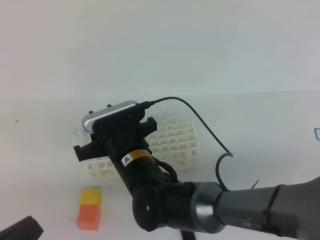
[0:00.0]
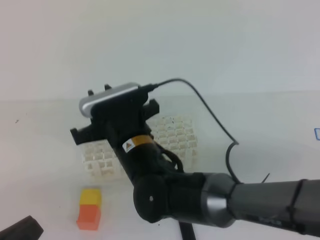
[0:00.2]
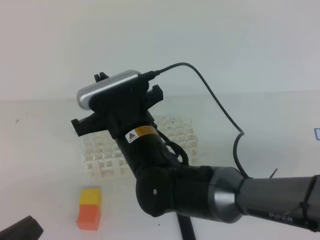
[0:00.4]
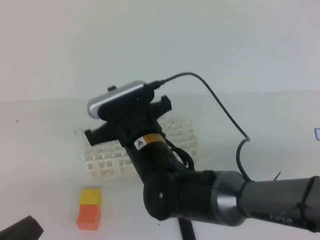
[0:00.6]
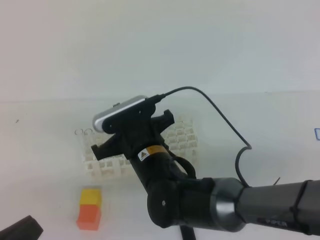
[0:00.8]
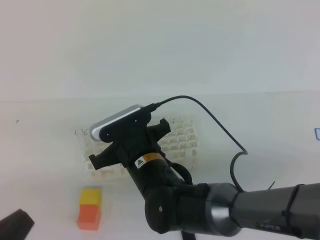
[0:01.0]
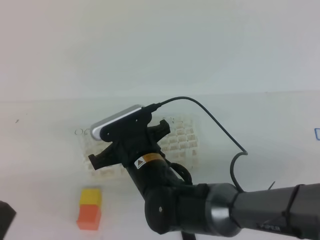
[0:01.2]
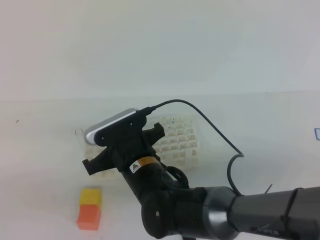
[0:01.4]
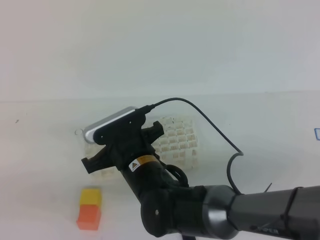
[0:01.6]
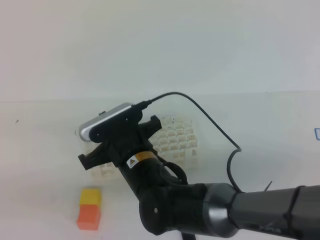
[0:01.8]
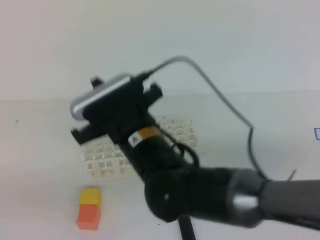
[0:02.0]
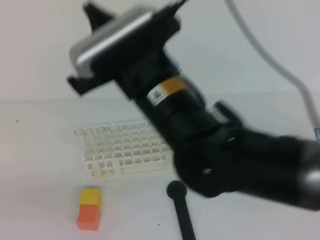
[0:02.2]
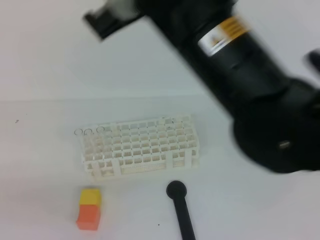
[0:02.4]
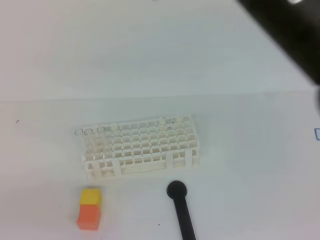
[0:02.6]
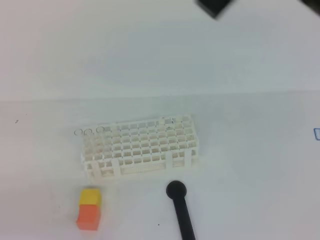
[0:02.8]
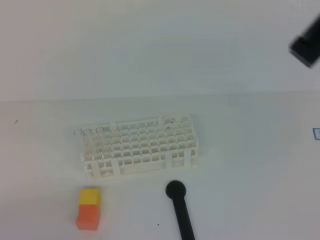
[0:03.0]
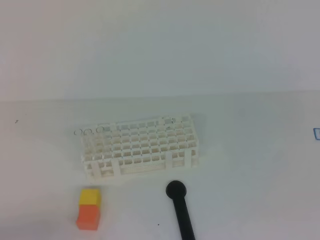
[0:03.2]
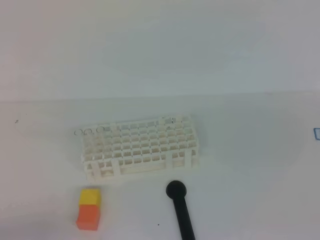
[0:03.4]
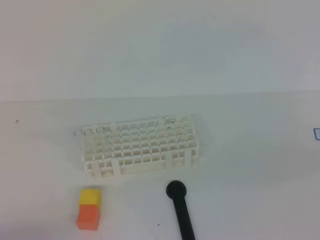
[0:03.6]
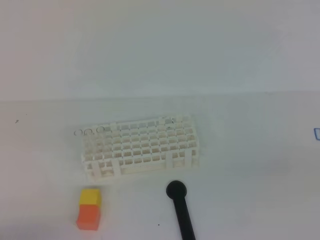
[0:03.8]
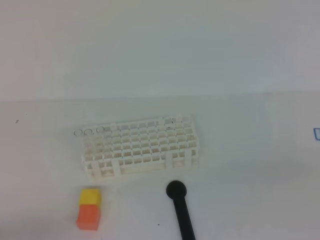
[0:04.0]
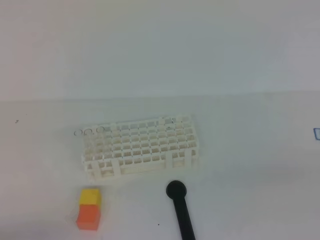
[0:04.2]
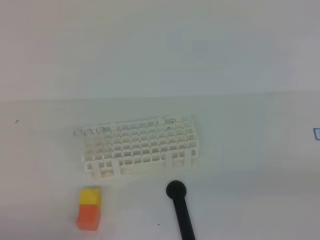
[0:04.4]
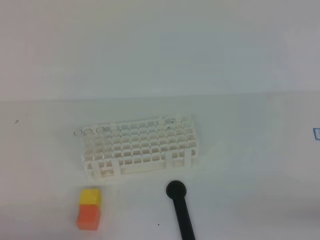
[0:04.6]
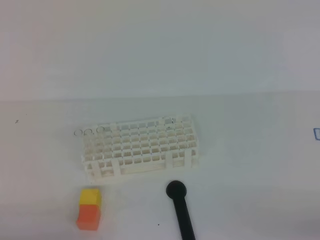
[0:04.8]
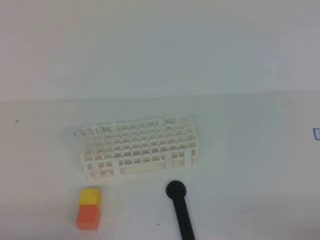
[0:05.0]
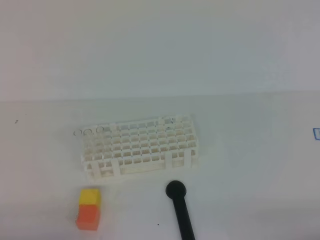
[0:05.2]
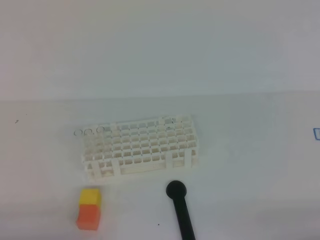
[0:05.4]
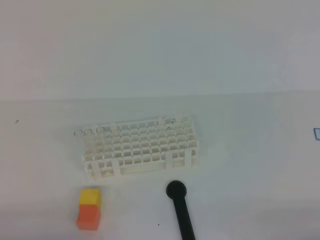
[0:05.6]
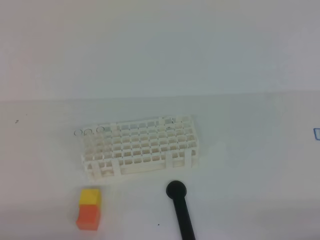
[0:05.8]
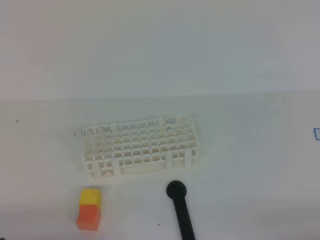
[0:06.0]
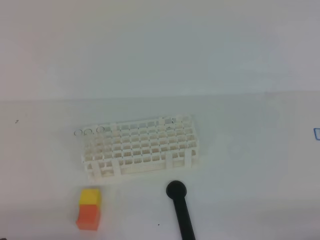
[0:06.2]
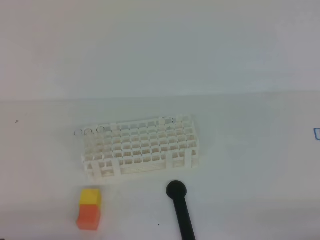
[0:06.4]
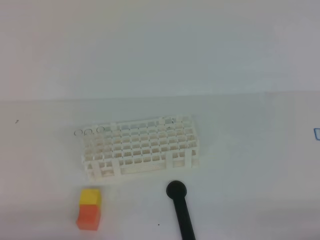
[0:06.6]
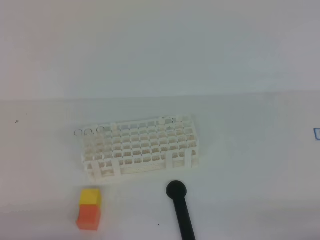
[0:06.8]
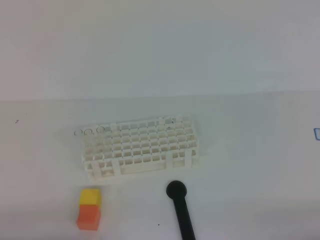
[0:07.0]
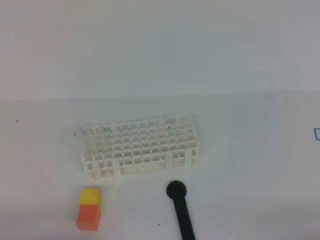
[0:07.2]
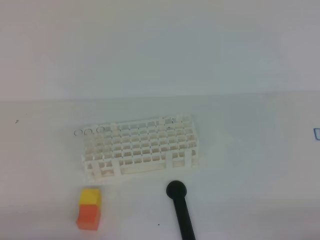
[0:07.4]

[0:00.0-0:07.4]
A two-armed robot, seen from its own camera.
0:00.0 to 0:01.4: The right gripper closes.
0:01.4 to 0:03.0: The right gripper is displaced upward and to the right by some 35 cm.
0:03.0 to 0:04.4: The right gripper goes some 25 cm downward, to the right and backward.
0:06.0 to 0:07.4: Neither gripper changes place.

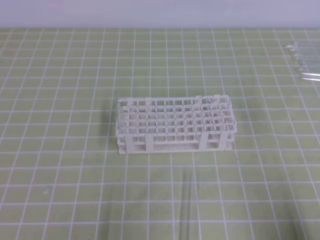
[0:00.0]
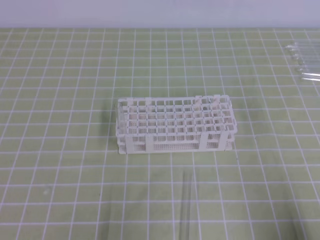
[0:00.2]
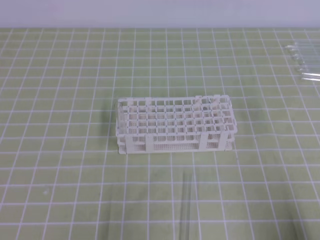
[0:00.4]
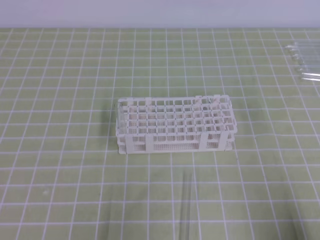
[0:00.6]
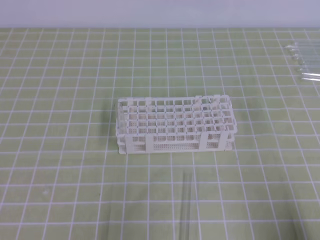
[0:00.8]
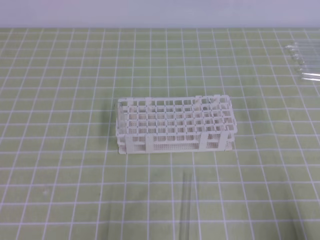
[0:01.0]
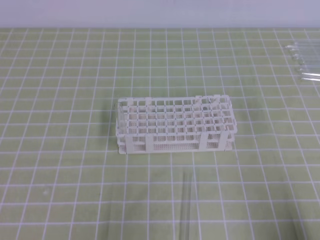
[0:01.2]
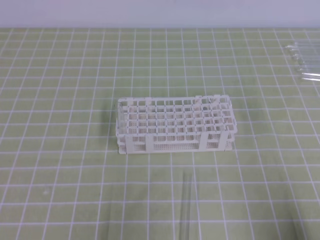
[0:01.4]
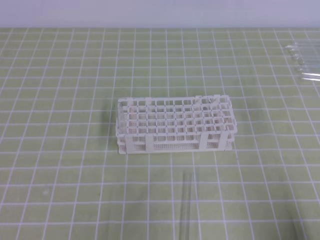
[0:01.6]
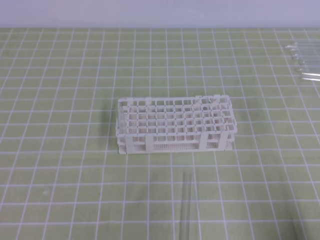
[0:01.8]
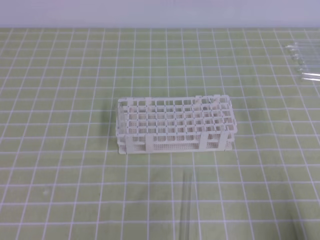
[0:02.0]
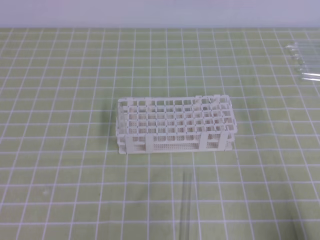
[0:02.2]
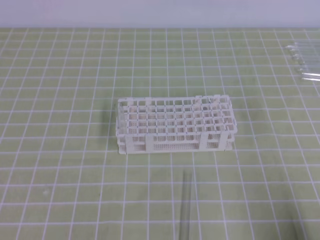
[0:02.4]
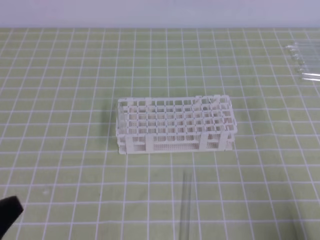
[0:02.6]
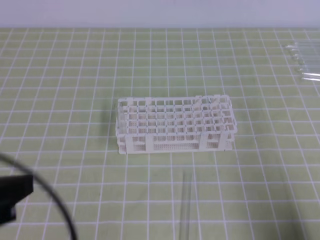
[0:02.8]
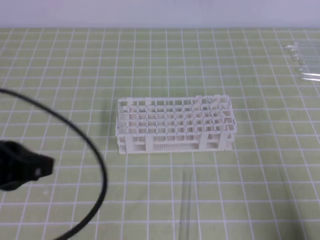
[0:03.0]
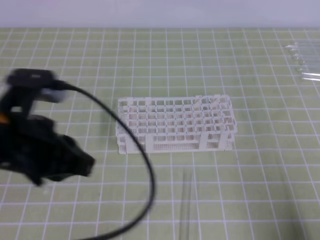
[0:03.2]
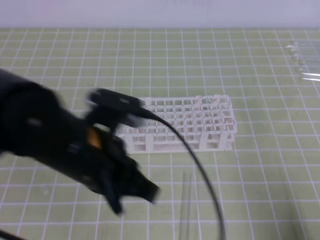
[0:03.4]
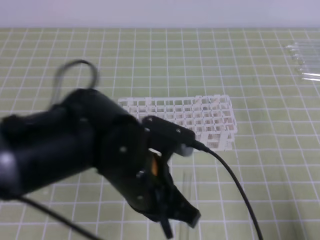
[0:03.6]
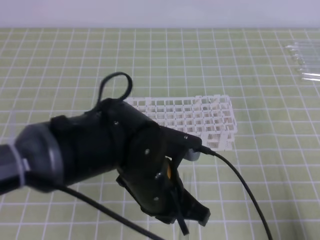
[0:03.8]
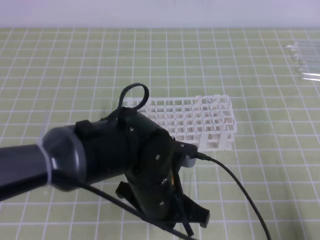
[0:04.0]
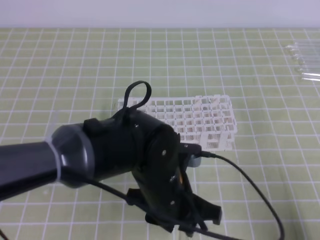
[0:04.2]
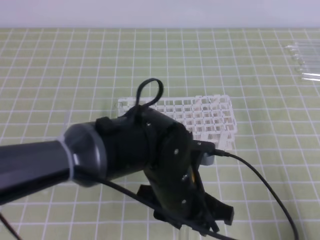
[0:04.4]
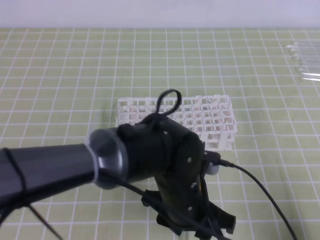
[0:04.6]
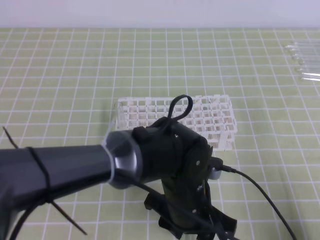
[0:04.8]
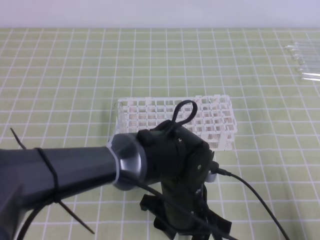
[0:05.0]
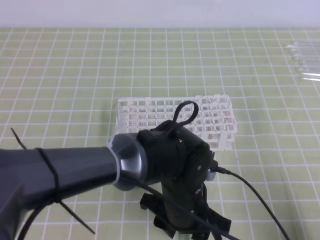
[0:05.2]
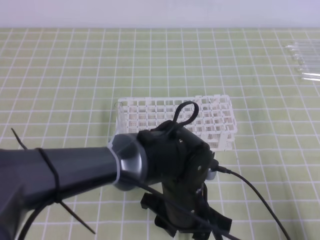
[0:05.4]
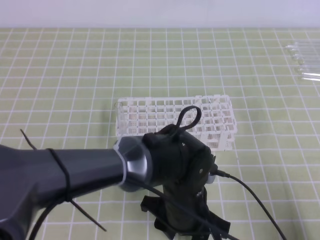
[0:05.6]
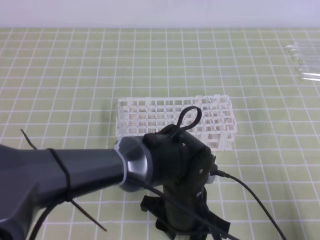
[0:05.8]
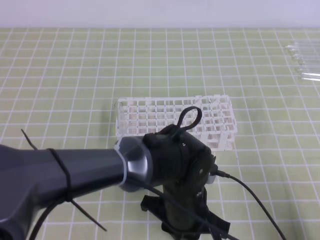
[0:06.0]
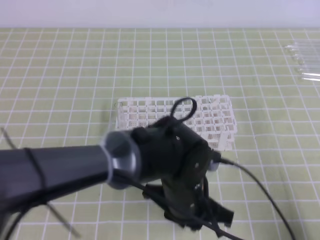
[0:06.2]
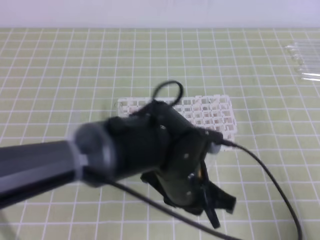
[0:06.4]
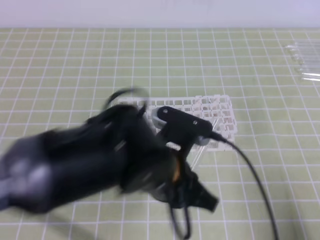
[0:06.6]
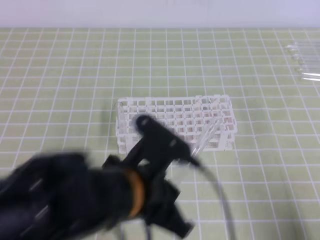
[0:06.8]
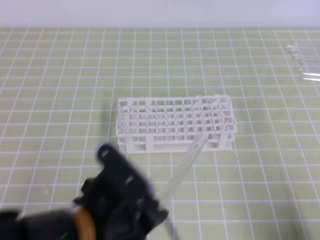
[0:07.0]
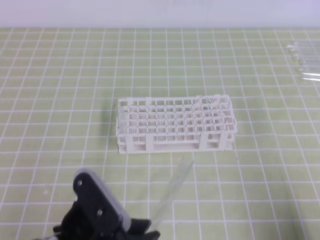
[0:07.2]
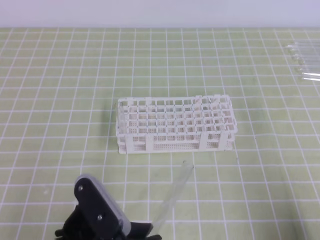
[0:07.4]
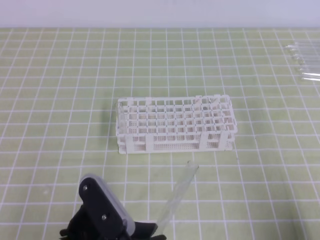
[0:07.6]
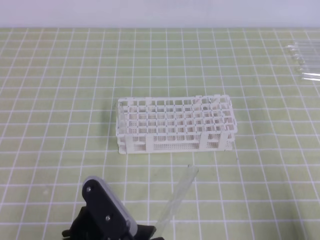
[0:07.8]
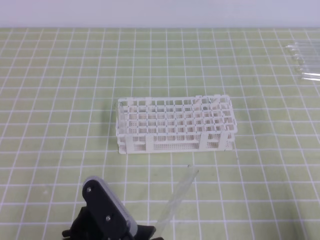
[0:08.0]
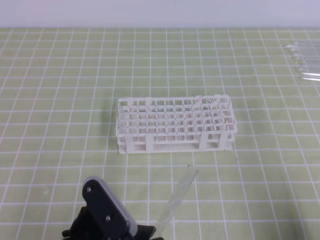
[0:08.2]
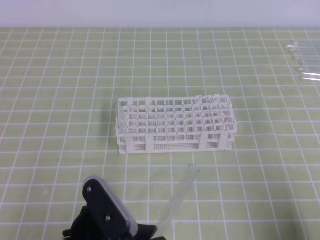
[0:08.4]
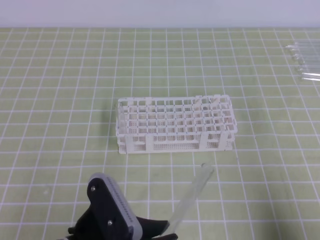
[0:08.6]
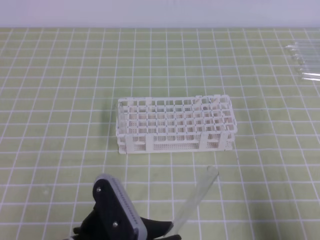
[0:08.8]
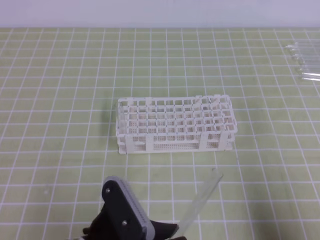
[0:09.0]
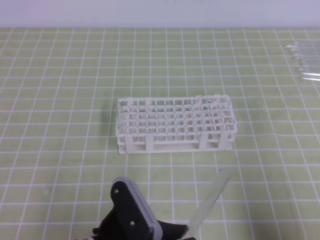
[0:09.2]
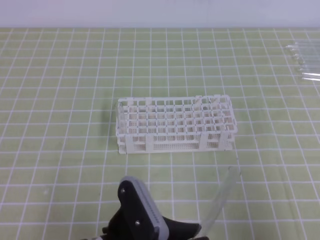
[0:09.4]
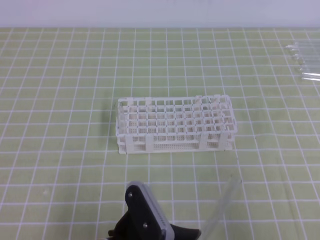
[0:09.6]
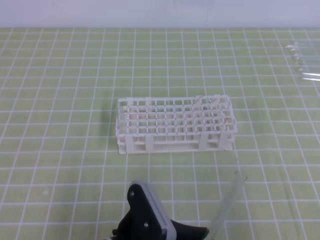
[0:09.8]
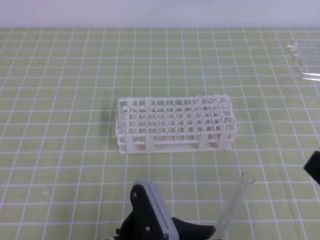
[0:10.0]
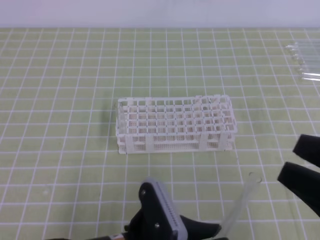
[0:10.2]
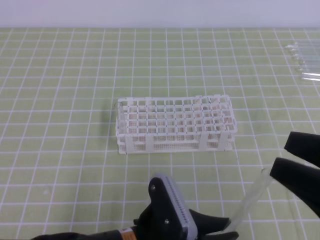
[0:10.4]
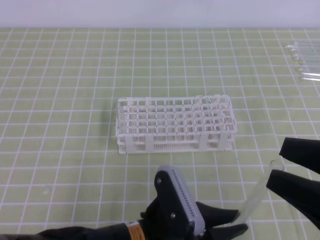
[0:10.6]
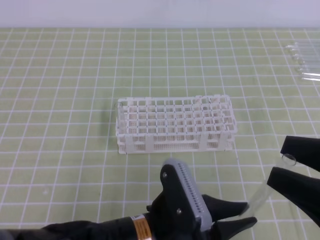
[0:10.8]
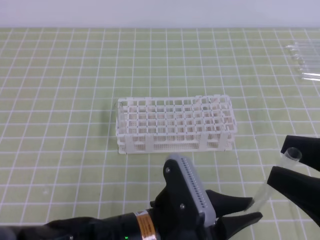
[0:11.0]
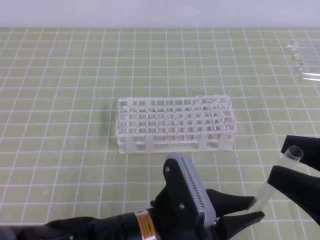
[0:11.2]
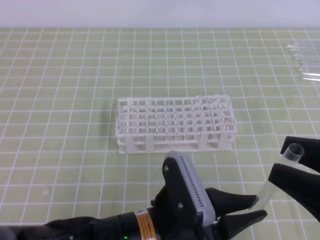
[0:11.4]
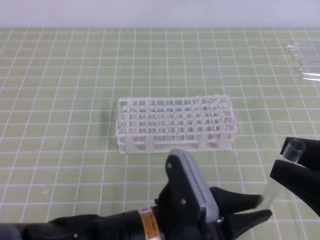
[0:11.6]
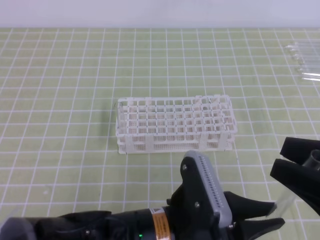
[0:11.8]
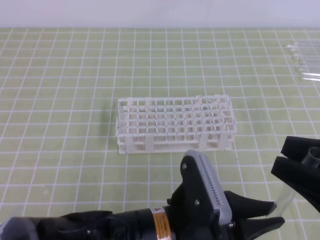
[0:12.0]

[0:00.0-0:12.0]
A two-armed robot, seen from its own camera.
0:01.6 to 0:03.0: The left gripper travels upward, forward and to the right by about 15 cm.
0:03.0 to 0:04.4: The left gripper is displaced to the right and downward by about 25 cm, and opens.
0:04.4 to 0:06.0: The left gripper closes.
0:06.0 to 0:07.6: The left gripper travels to the left and backward by about 20 cm.
0:09.0 to 0:10.4: The right gripper moves upward and to the left, approximately 15 cm, and opens up, while the left gripper moves to the right, some 5 cm.
0:10.4 to 0:12.0: The right gripper closes its fingers. Meanwhile the left gripper ends up about 5 cm from where it was.

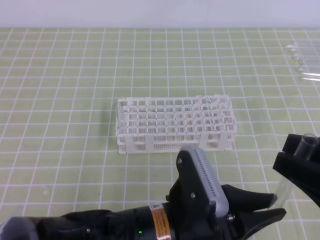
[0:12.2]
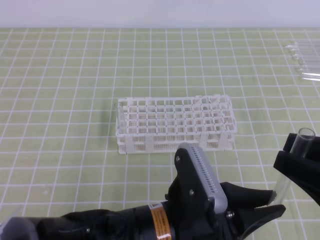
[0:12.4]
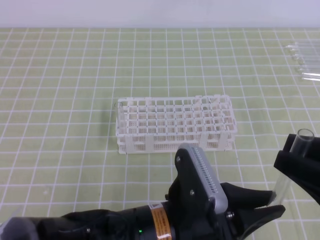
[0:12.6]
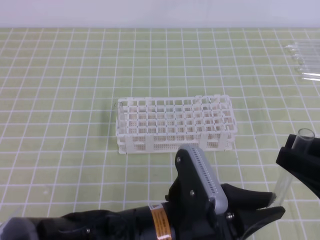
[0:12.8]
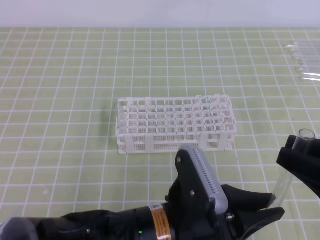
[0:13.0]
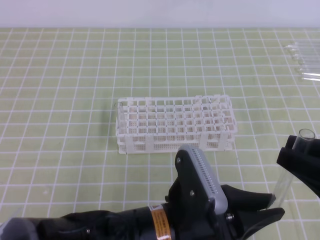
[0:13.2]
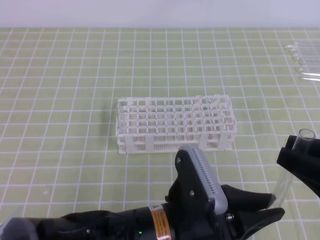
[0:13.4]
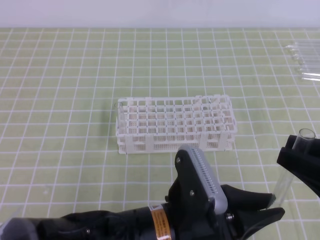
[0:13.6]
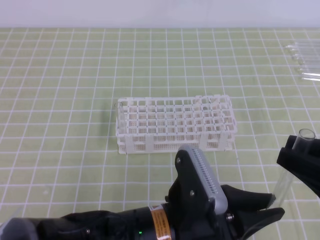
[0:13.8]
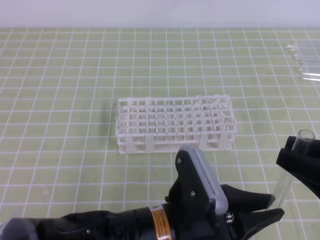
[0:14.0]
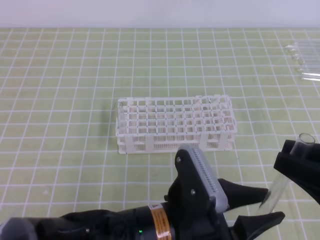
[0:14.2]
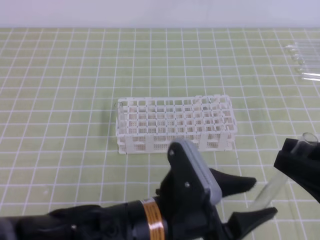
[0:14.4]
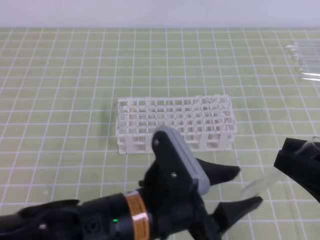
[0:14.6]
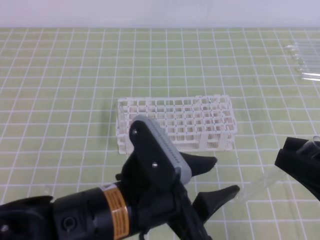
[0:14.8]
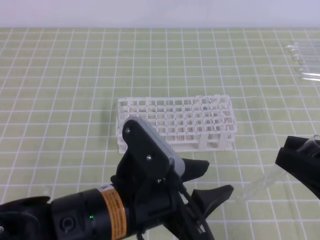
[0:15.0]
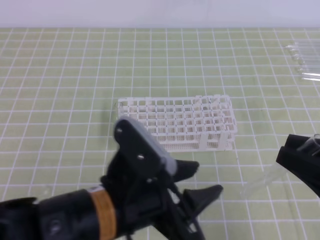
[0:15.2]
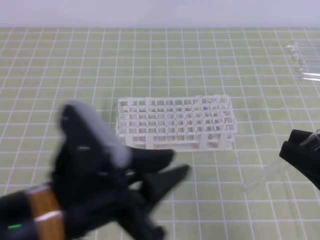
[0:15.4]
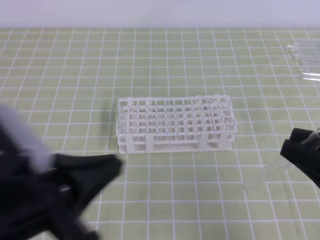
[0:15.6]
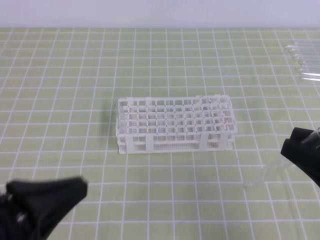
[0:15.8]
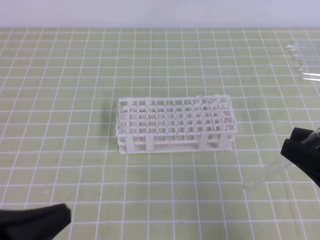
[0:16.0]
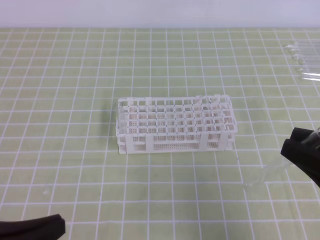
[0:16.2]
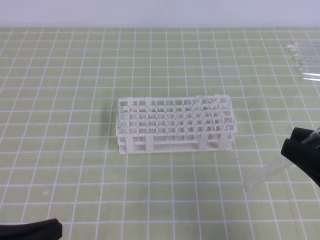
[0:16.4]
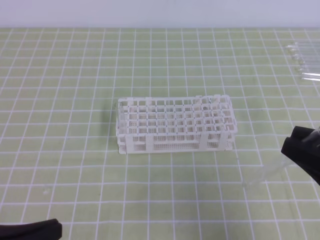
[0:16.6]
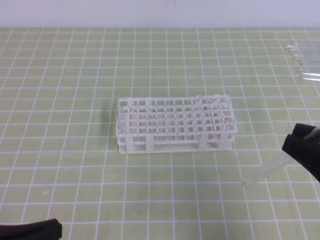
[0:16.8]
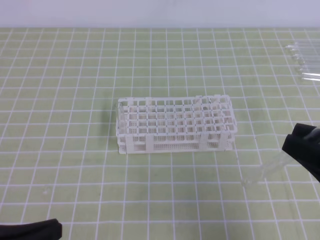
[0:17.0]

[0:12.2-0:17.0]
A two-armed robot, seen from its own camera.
0:12.2 to 0:13.8: Both grippers stay about where they are.
0:13.8 to 0:15.4: The left gripper goes some 15 cm to the left and upward, and opens its fingers.
0:15.4 to 0:17.0: The left gripper shifts some 15 cm to the left and backward, and closes its fingers.
